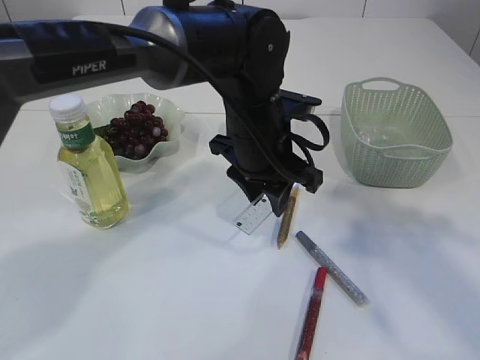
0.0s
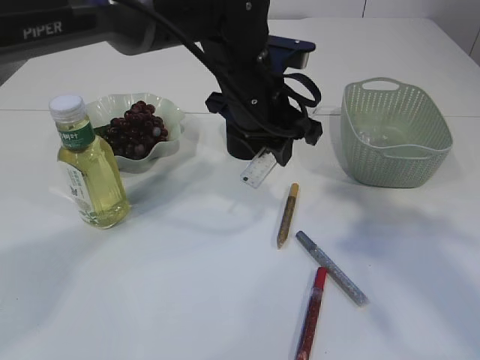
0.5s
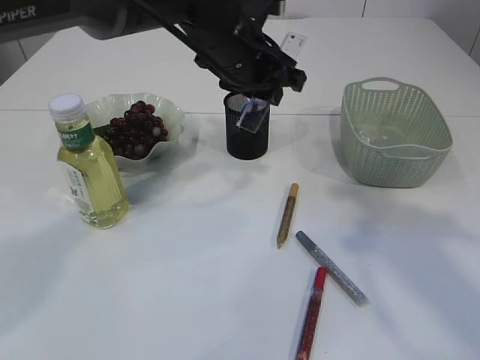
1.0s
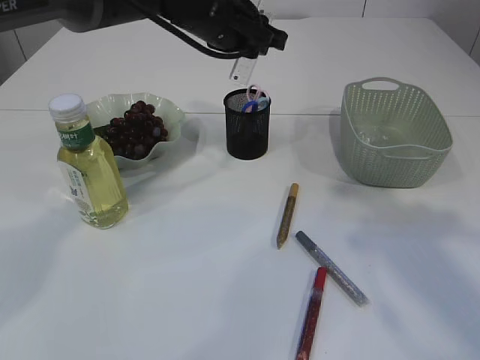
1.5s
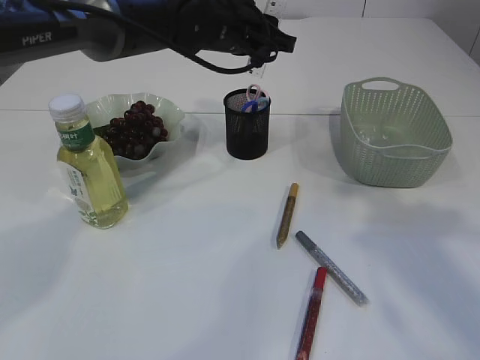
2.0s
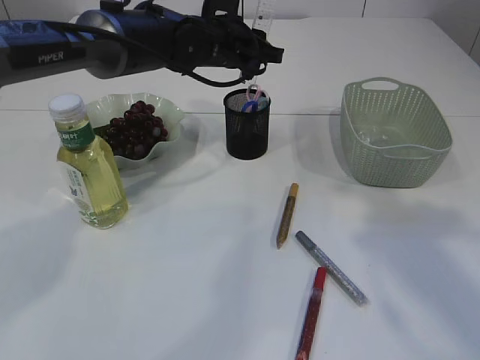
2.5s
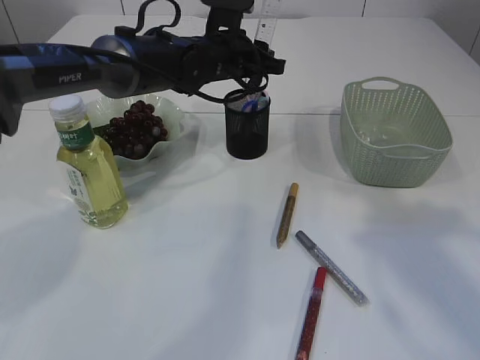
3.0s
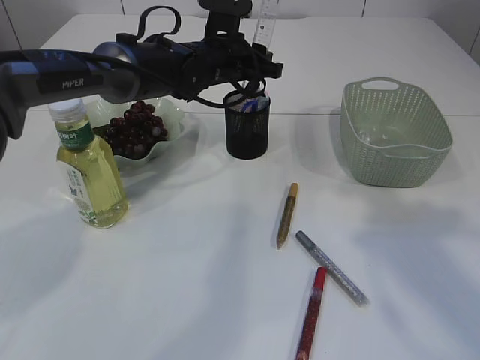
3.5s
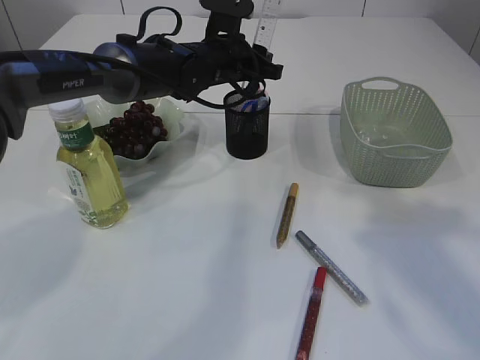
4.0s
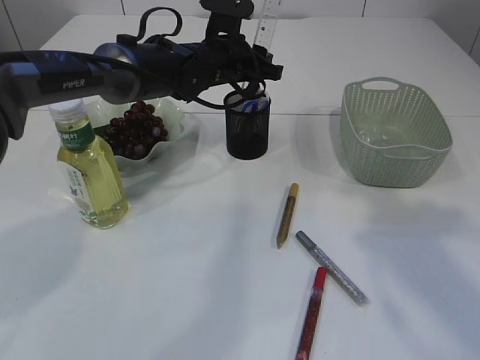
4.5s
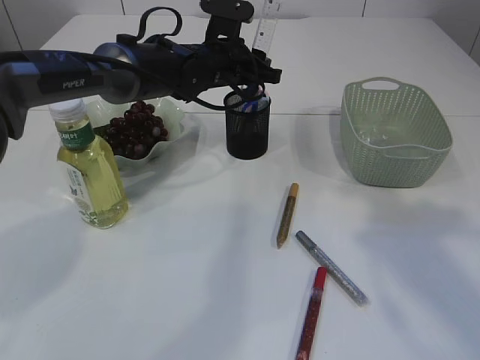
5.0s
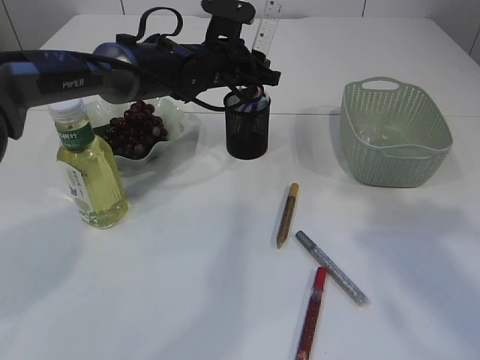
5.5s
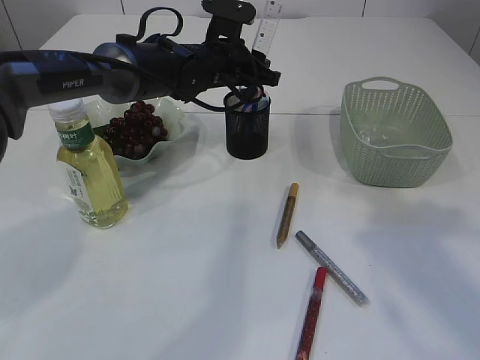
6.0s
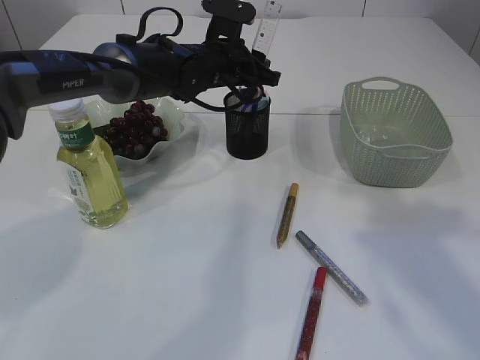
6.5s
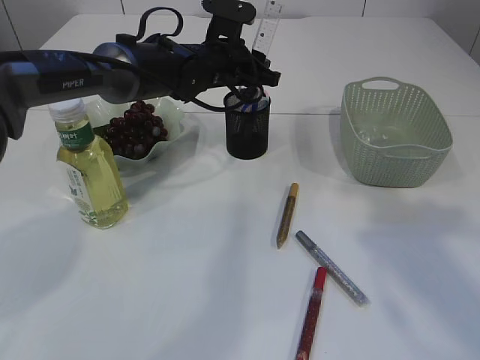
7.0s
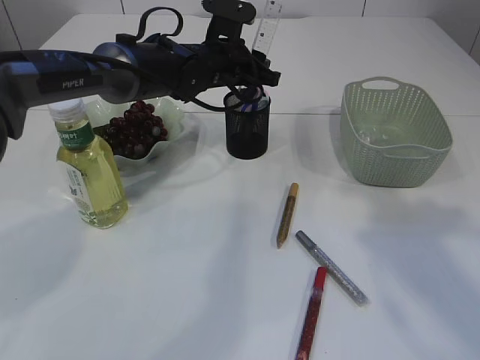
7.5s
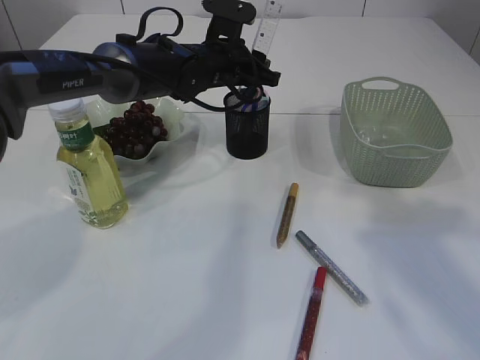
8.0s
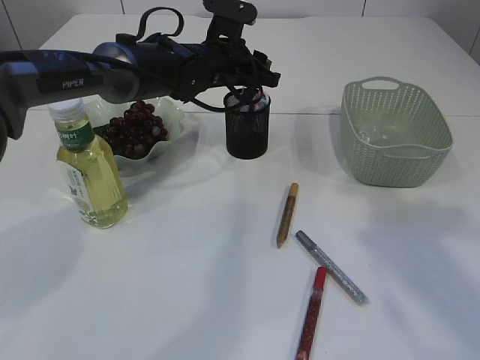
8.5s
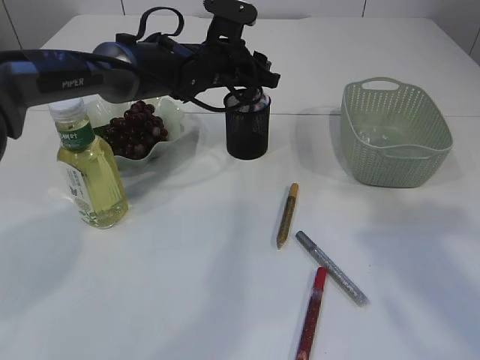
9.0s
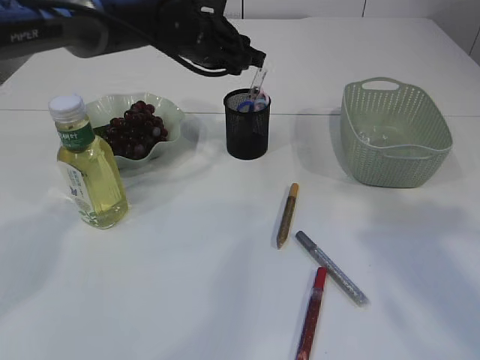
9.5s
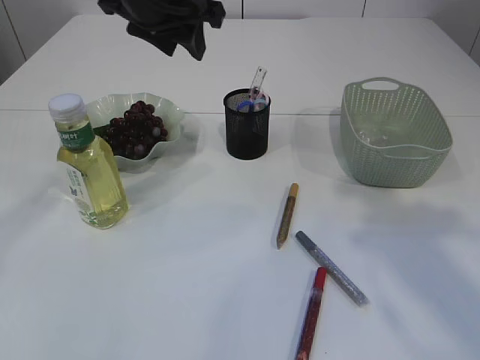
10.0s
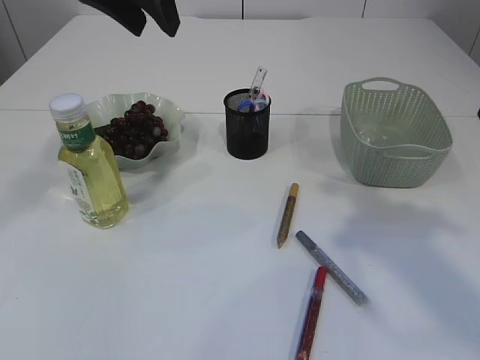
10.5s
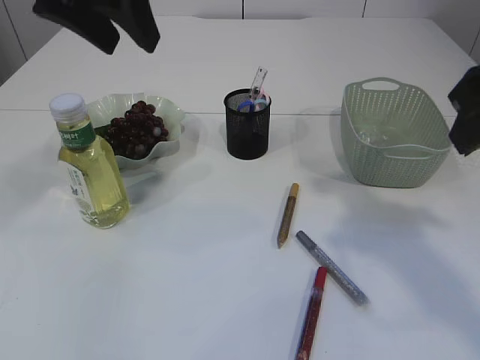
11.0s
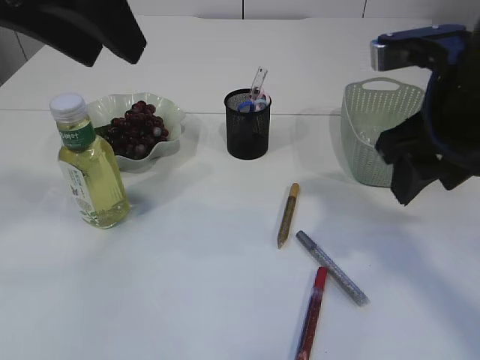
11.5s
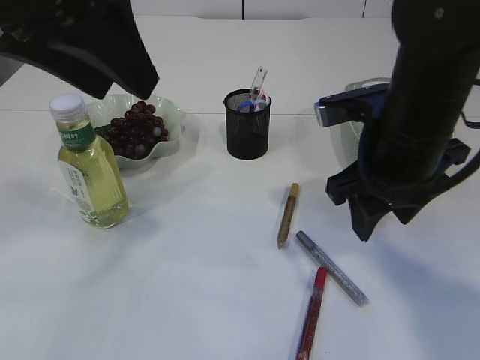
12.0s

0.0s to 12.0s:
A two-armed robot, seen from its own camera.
Step, 0.0s to 9.5s: Hand over the ruler.
0.0s to 2.0s: The left gripper moves forward and upward, about 15 cm.
2.0s to 4.0s: The left gripper shifts approximately 5 cm downward.
4.0s to 8.0s: Both grippers stay about where they are.
8.0s to 10.0s: The left gripper shifts about 20 cm upward, backward and to the left.
10.0s to 12.0s: The right gripper heads downward, forward and to the left, covering approximately 20 cm, while the left gripper is displaced backward and upward by roughly 20 cm.

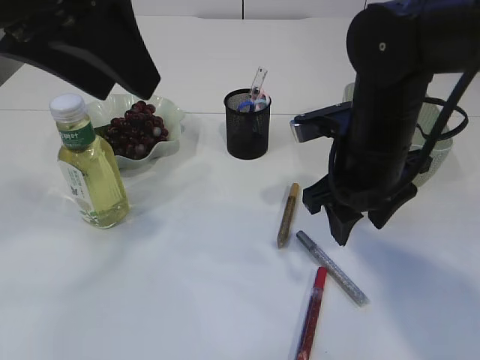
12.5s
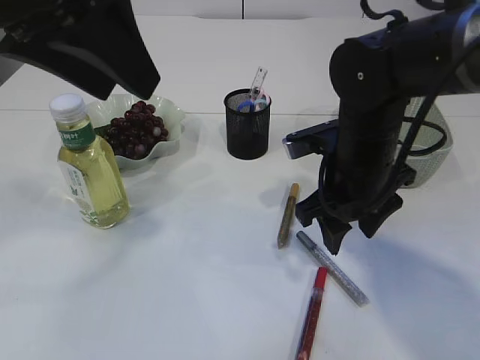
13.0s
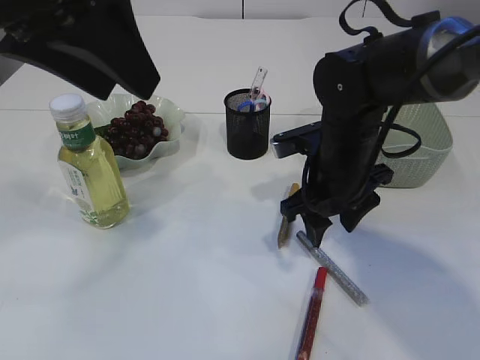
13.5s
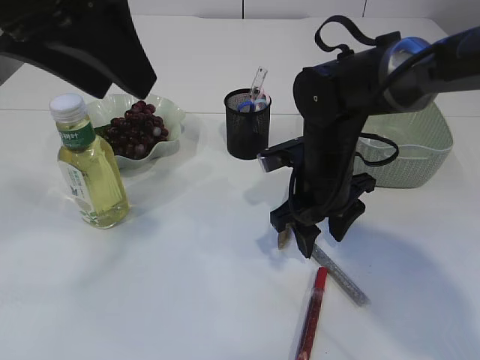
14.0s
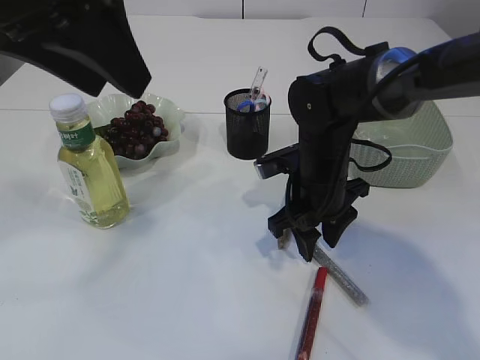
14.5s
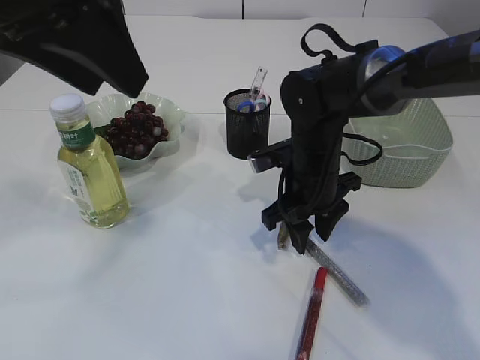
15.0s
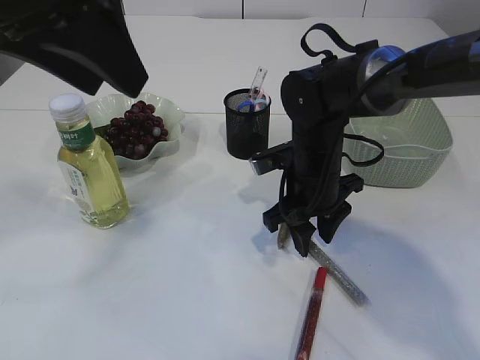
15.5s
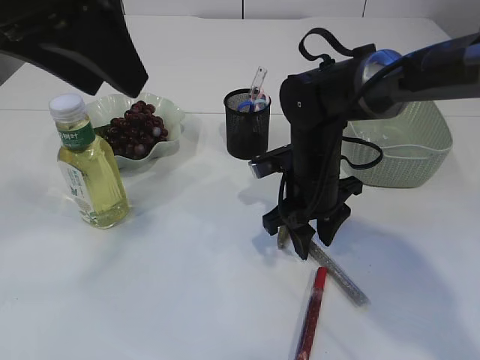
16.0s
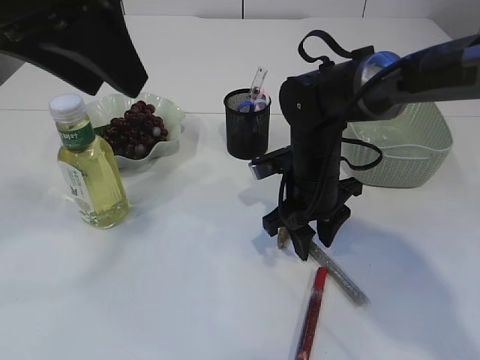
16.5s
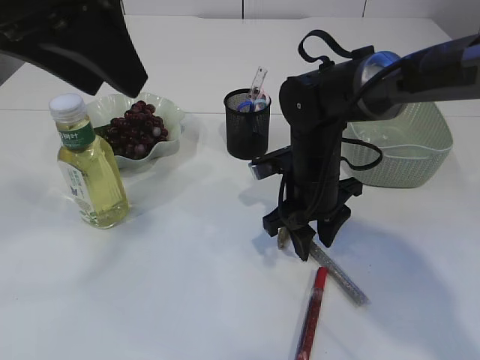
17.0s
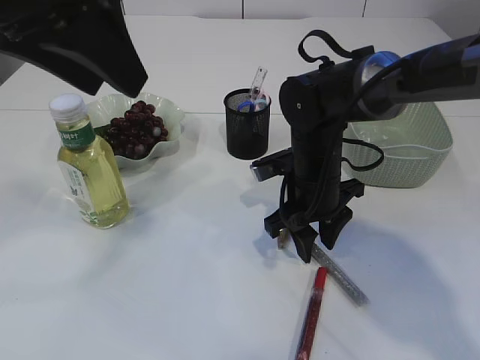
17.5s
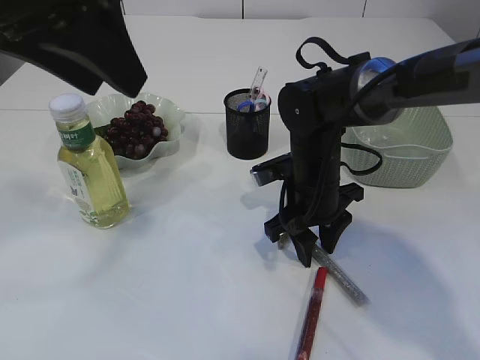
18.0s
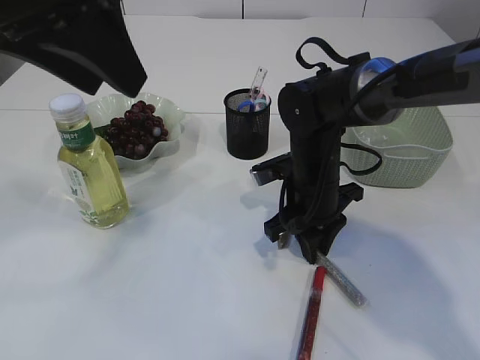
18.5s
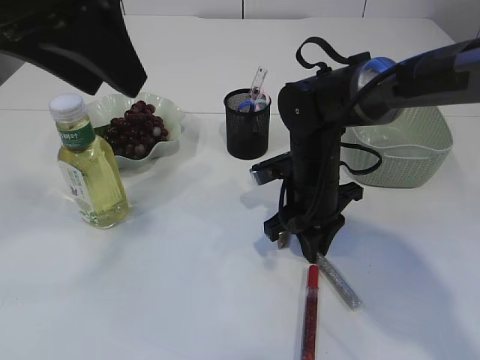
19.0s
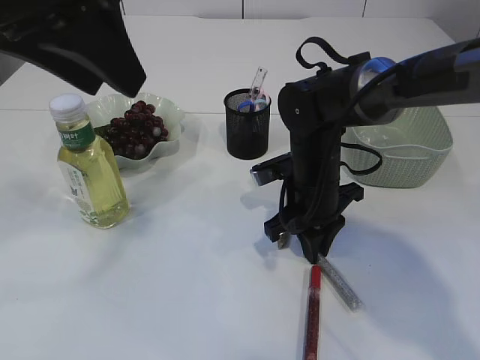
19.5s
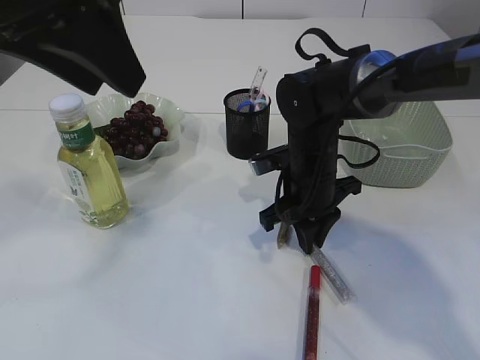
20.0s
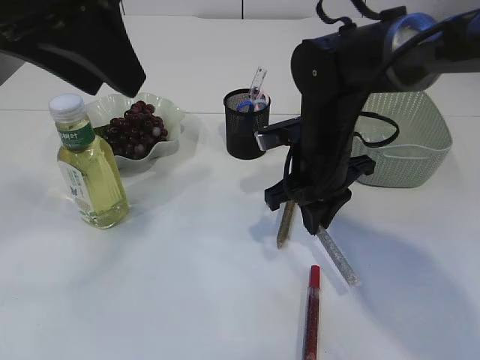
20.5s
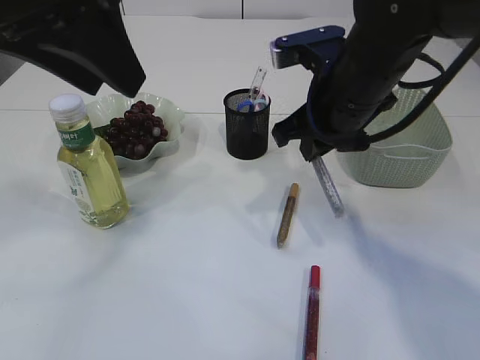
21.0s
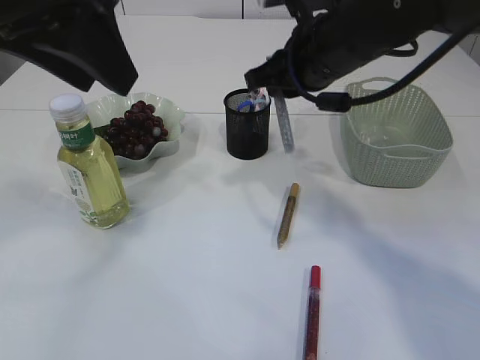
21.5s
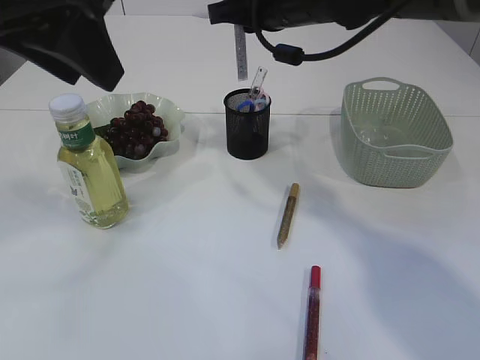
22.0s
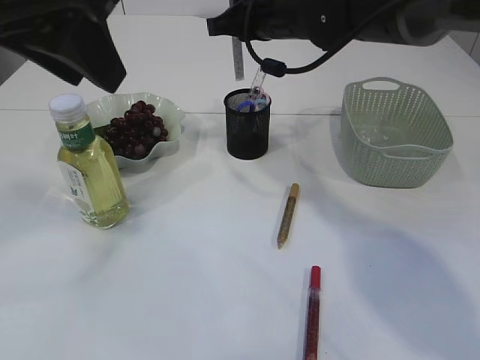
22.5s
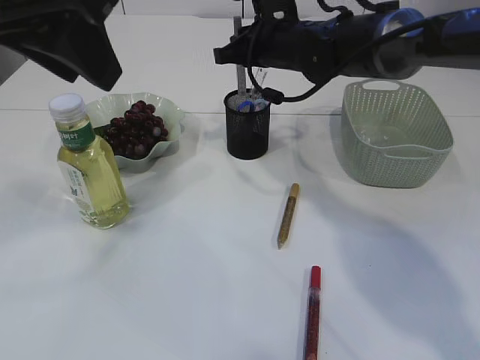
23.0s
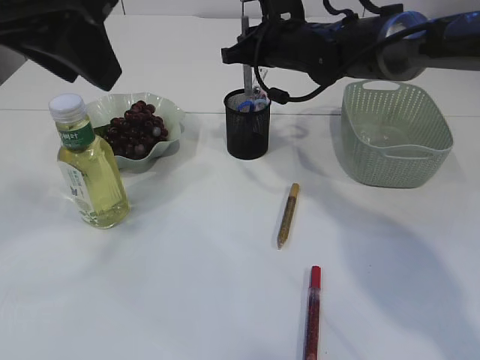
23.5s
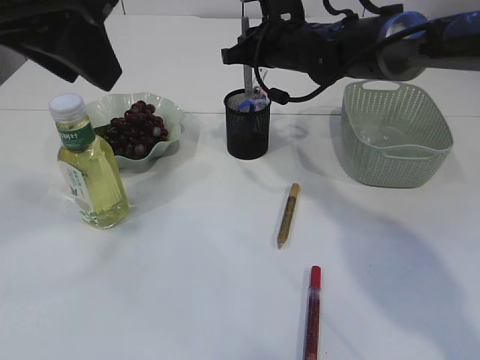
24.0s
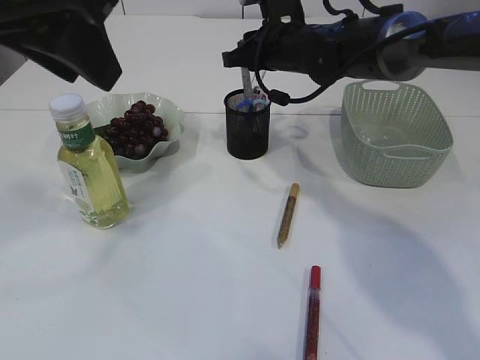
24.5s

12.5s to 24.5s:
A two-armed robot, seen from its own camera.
Step, 12.5s to 20.5s: pick up the silver glue.
12.5s to 14.5s: The right gripper travels downward by roughly 10 cm.
14.5s to 16.5s: Both grippers stay about where they are.
16.5s to 18.5s: Neither gripper changes place.
18.5s to 20.5s: The grippers move only a little.
20.5s to 22.5s: The right gripper moves upward and forward, approximately 15 cm.
22.5s to 24.5s: The right gripper heads downward, covering roughly 5 cm.

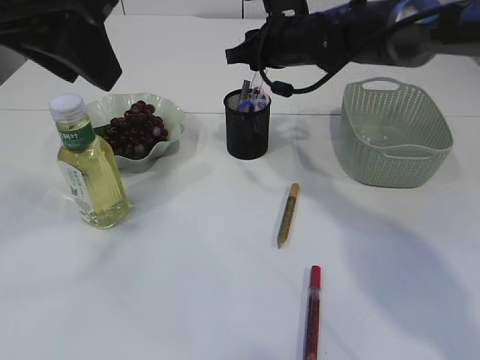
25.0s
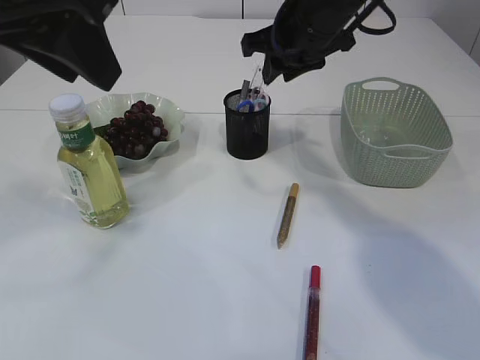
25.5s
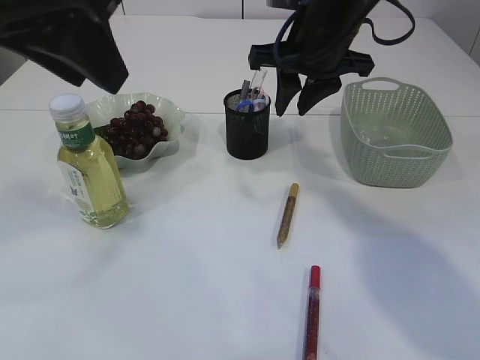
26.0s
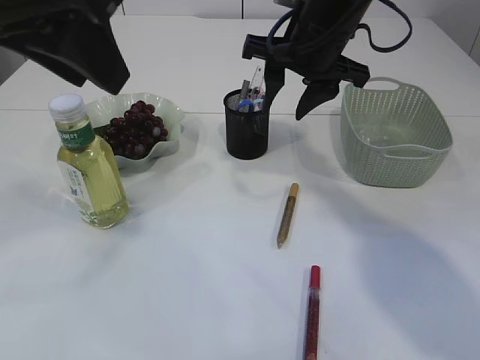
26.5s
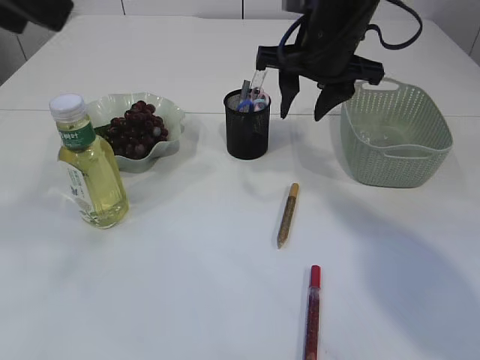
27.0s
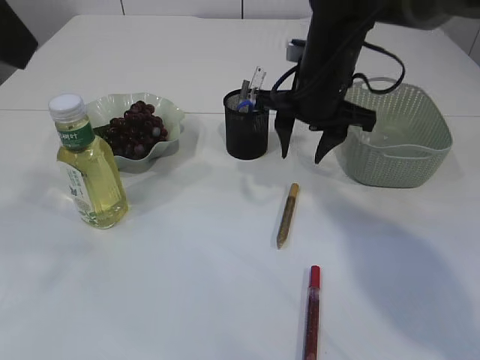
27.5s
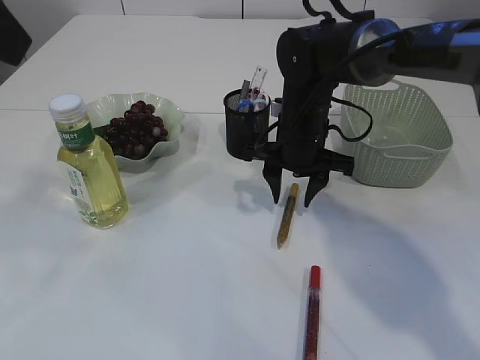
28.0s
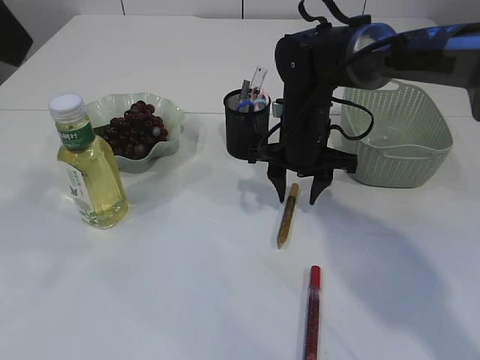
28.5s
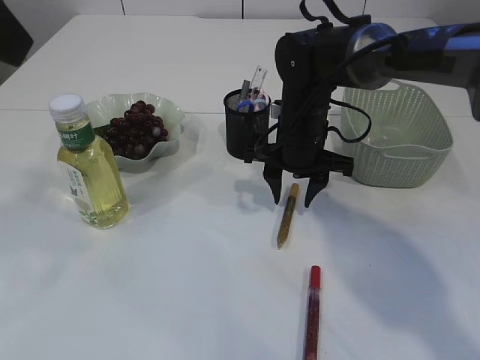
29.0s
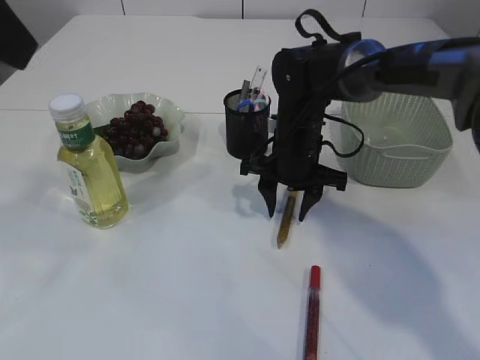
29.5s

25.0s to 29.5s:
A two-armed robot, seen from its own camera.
25.0s to 27.0s: The right gripper goes roughly 10 cm backward and upward. The left gripper moves roughly 5 cm.
27.0s to 29.5s: The right gripper is displaced downward by approximately 15 cm.
